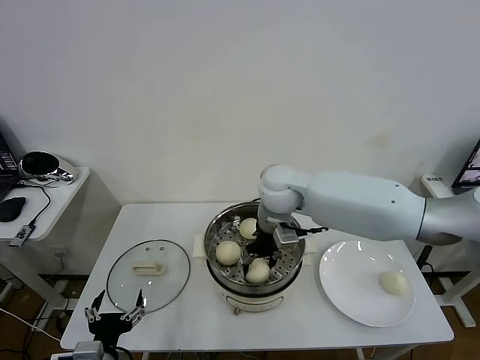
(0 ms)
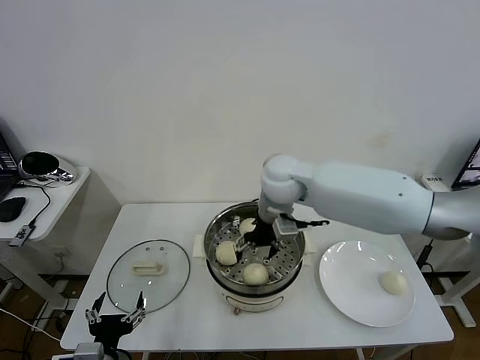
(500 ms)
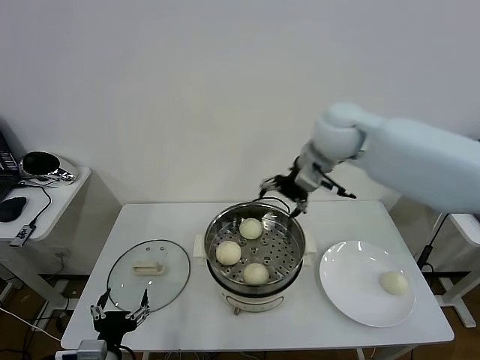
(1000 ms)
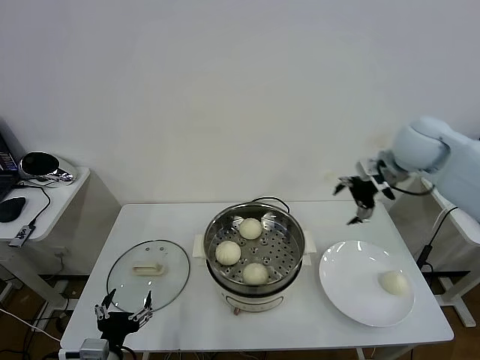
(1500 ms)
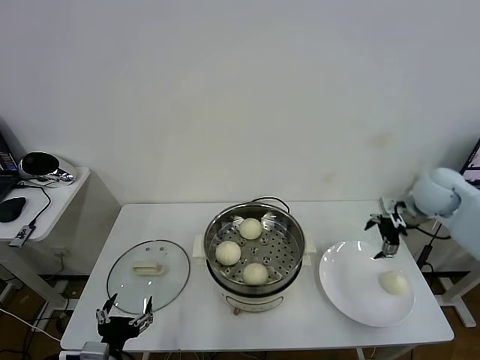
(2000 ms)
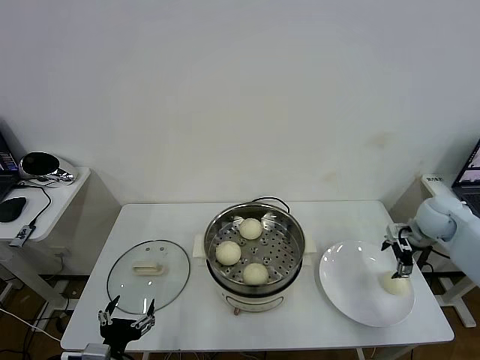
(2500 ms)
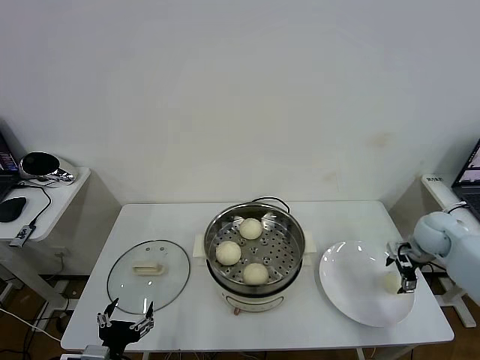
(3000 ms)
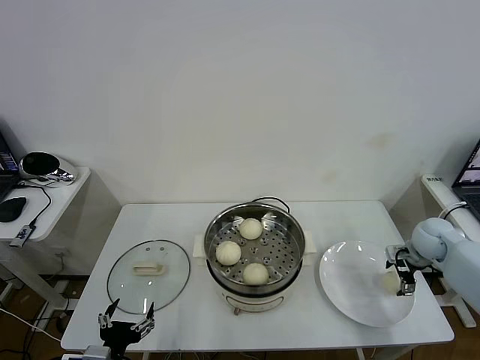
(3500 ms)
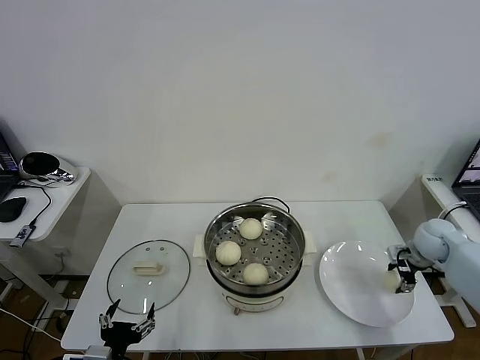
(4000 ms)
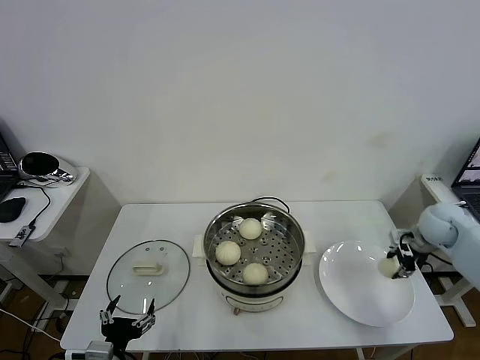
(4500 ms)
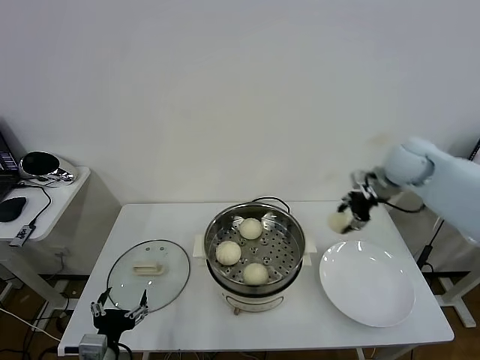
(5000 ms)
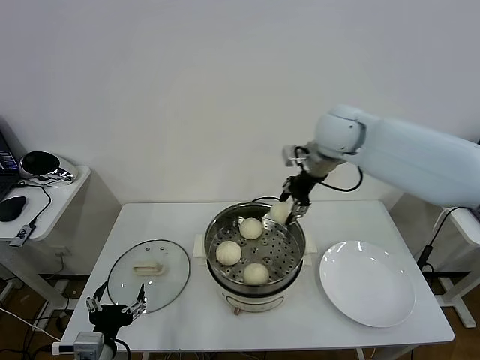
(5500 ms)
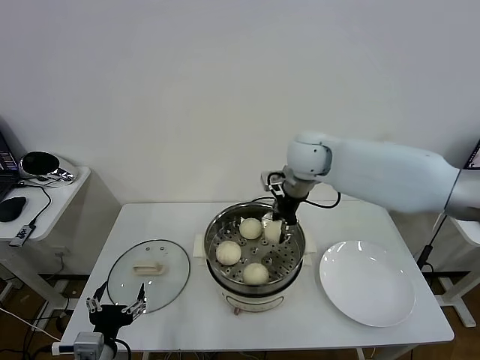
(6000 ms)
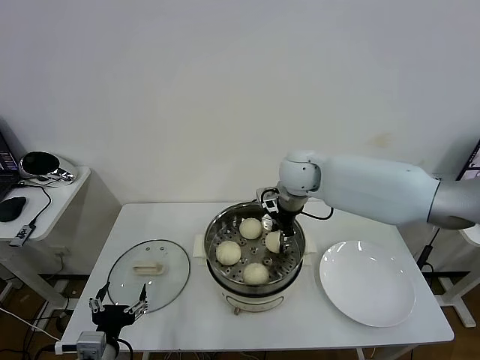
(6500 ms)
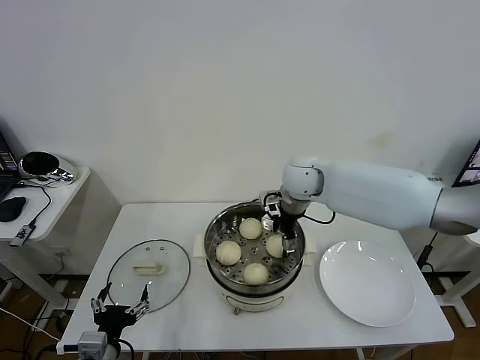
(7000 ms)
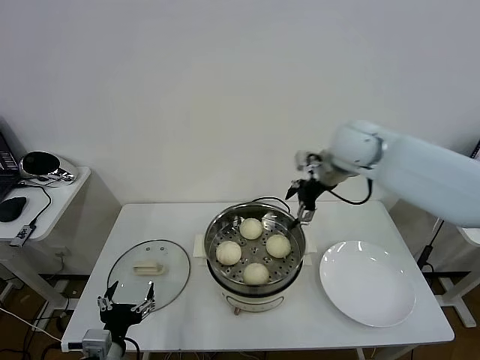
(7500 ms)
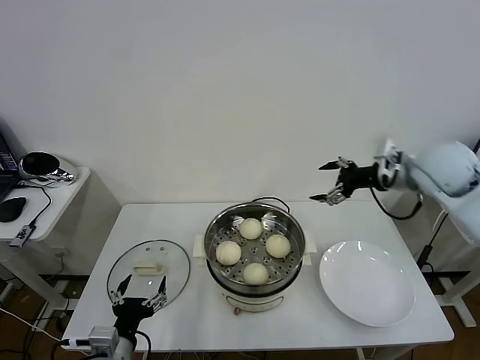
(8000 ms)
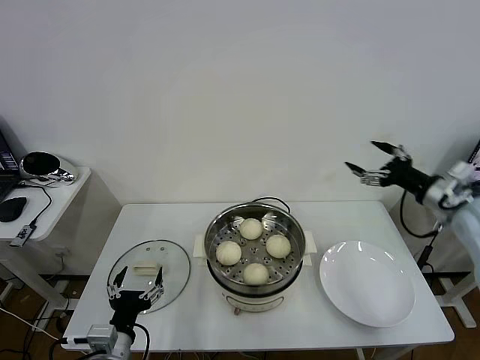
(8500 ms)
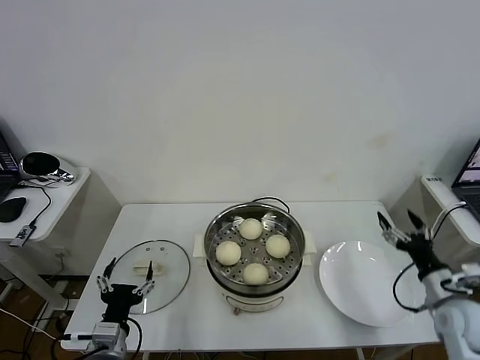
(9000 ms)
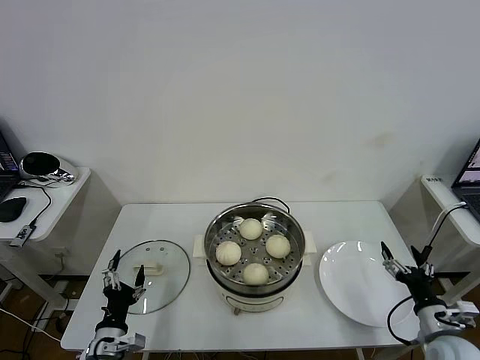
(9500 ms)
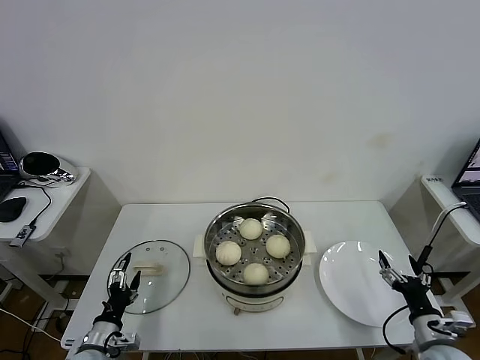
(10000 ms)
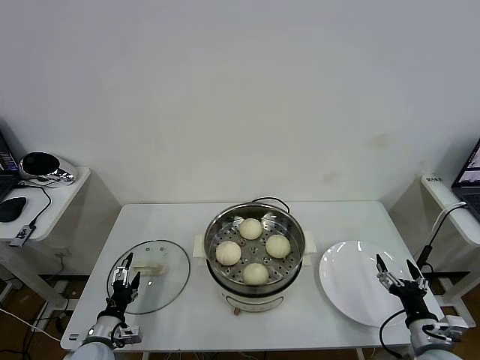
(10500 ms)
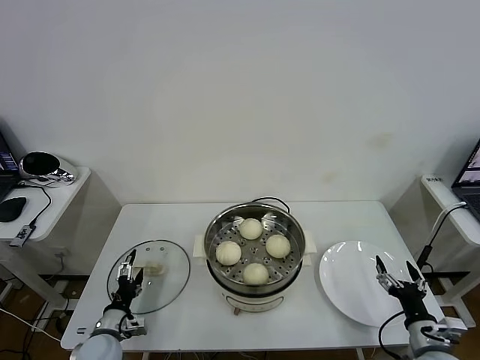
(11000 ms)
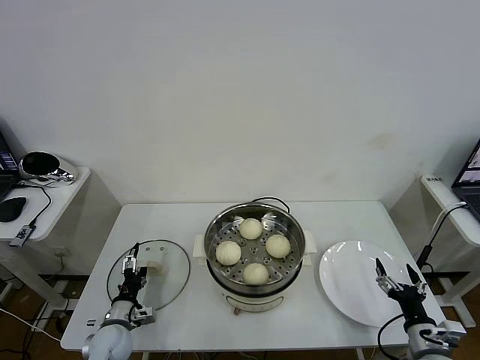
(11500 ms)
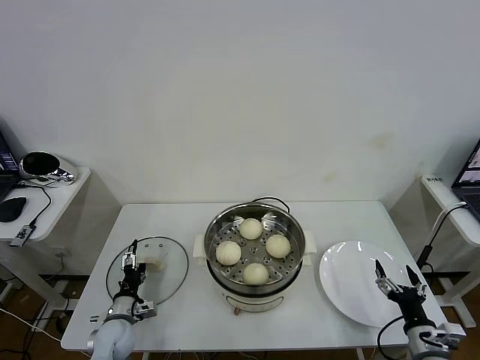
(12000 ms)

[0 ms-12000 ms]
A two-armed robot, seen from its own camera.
Task of the whole recording: take steamed baozi put them in steamer then cover it.
Step, 1000 ms to 4000 ms: Grasp the baozi in the plate with right gripper.
Step, 4500 ms to 7000 ms: Place the baozi on the steamer with right gripper.
0 ms to 2000 ms: The right gripper heads to the right, covering approximately 35 cm, and opens its fingers.
2000 ms to 4000 ms: The right gripper travels downward by about 15 cm, and closes up.
4000 ms to 6000 ms: The right gripper shifts about 40 cm to the left and upward.
6000 ms to 8000 ms: The right gripper heads to the right, covering roughly 25 cm, and opens up.
8000 ms to 10000 ms: The left gripper heads downward, to the left and forward, covering approximately 15 cm; the right gripper is displaced downward and backward by approximately 40 cm.
10000 ms to 12000 ms: The left gripper is displaced forward by roughly 10 cm.

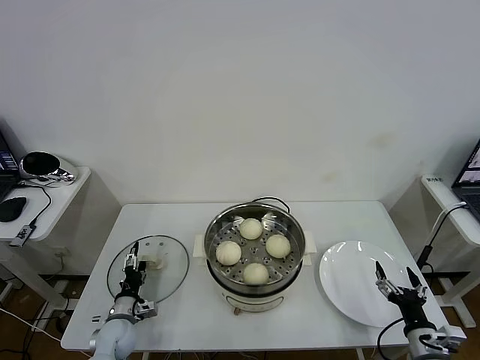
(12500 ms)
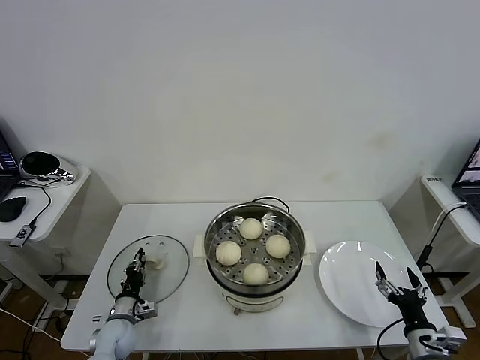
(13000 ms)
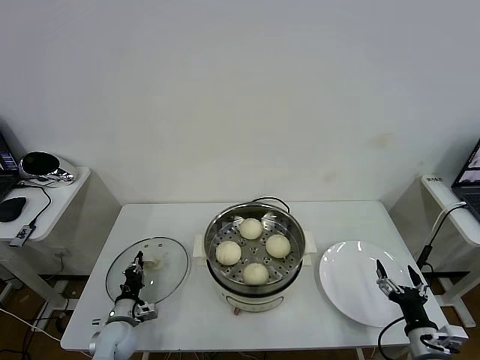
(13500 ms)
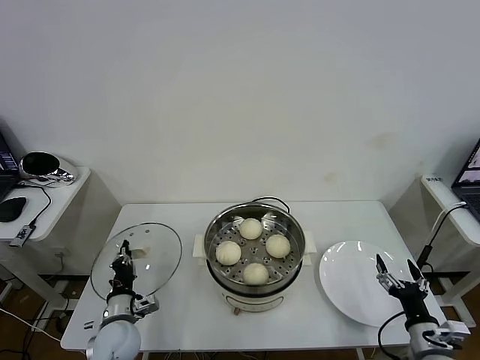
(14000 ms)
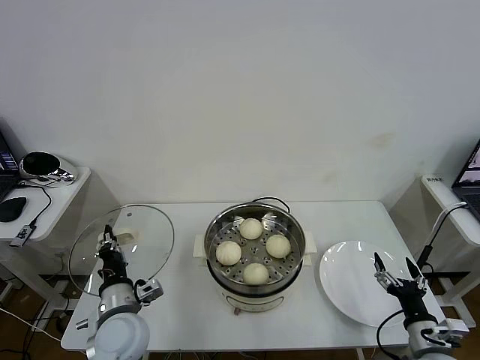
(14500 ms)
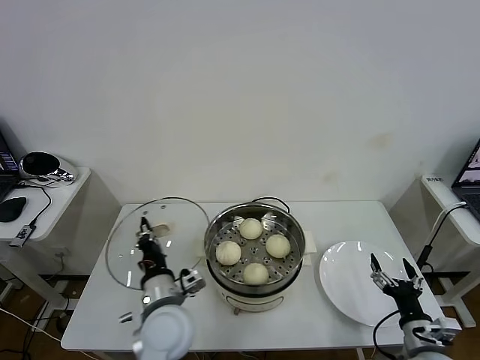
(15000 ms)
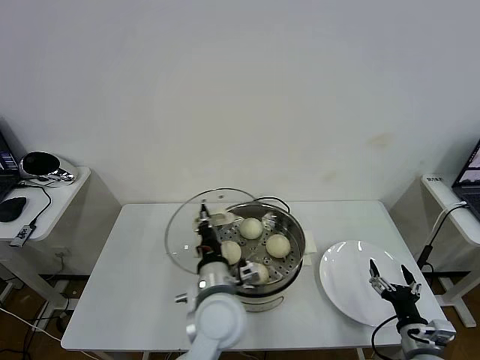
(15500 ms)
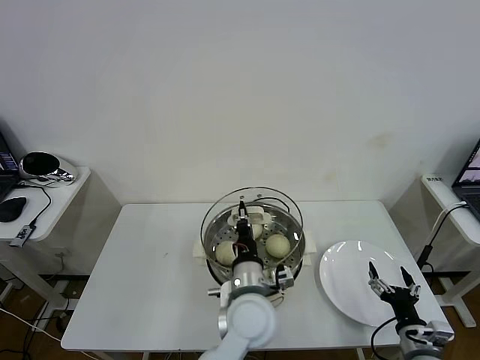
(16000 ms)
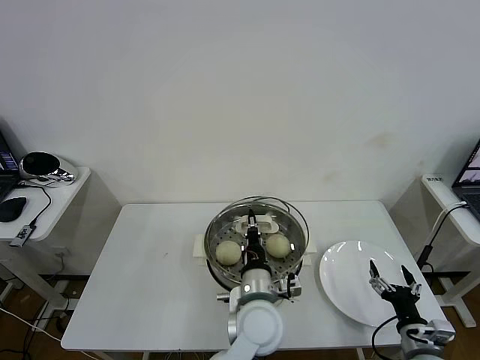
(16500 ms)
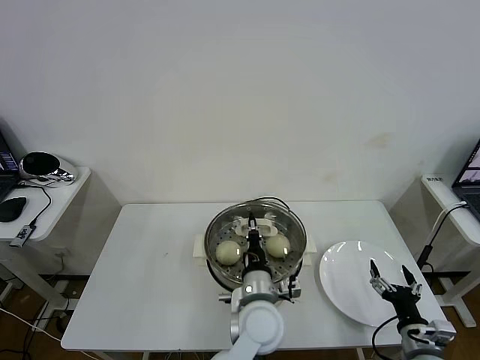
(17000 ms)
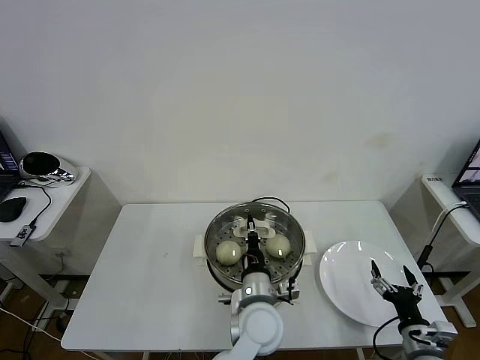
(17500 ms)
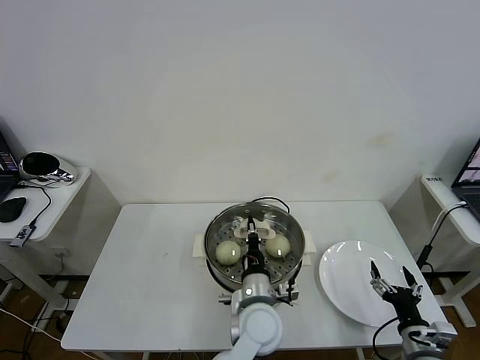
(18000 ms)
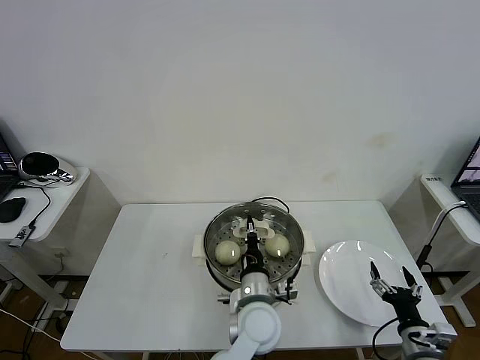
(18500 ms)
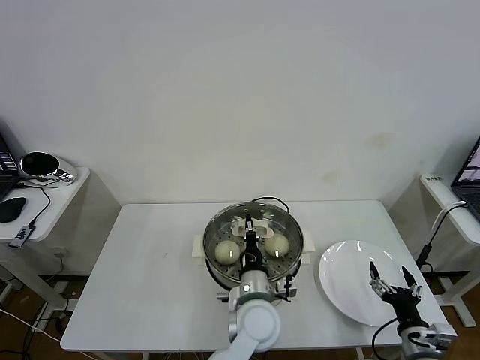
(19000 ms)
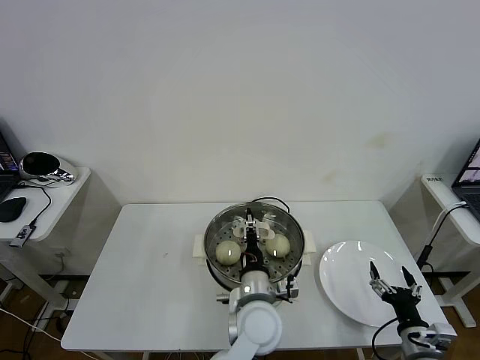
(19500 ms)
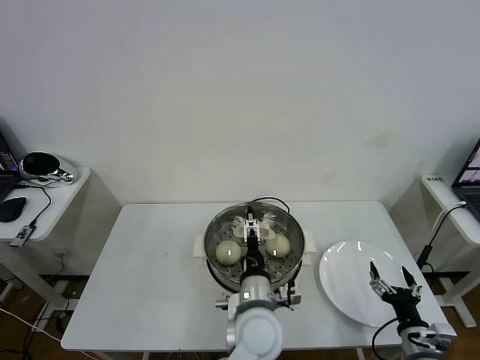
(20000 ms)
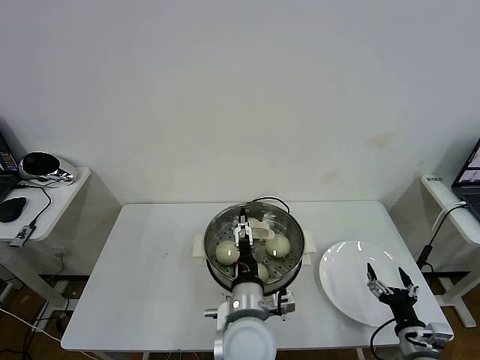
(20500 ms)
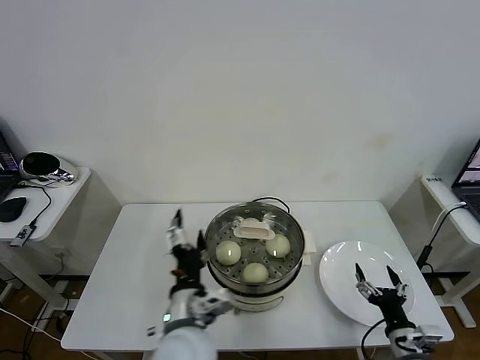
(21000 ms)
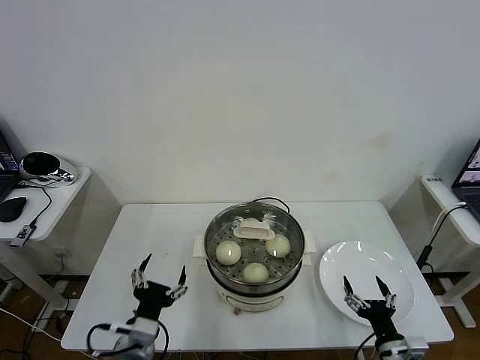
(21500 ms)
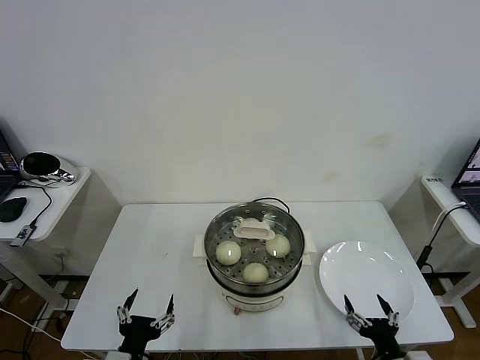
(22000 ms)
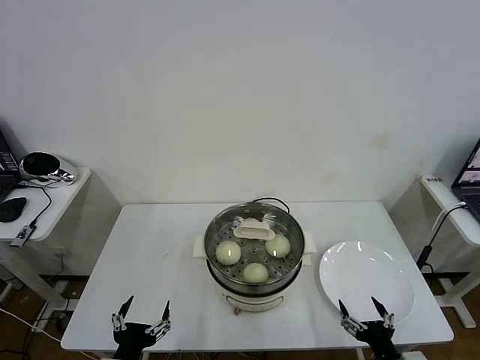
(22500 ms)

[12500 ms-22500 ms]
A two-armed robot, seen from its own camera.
Task of the whole recording: take steamed baozi put them in steamer then cover it.
Step, 13500 ms to 19500 ms: Place the pot lid on the steamer with left gripper.
12500 ms to 14500 ms: The left gripper shifts approximately 20 cm upward and to the right, and closes its fingers.
14500 ms to 16500 ms: The left gripper moves to the right, some 25 cm.
16500 ms to 18500 ms: There are only small adjustments of the grippers.
18500 ms to 20500 ms: The left gripper shifts by about 5 cm, and opens.
20500 ms to 22500 ms: The right gripper moves backward and to the left, roughly 10 cm, while the left gripper is displaced to the left and backward by roughly 30 cm.

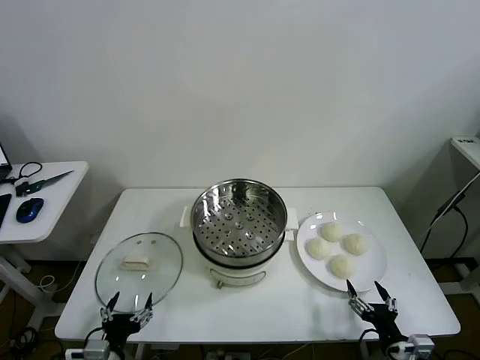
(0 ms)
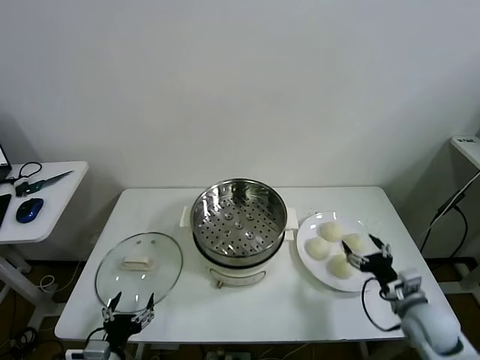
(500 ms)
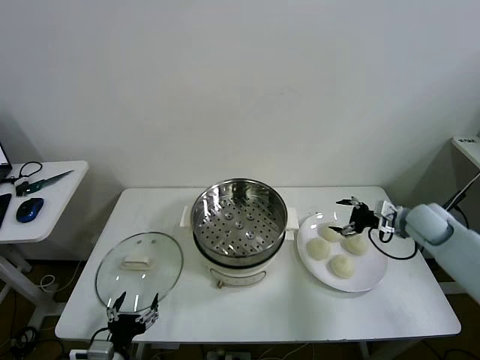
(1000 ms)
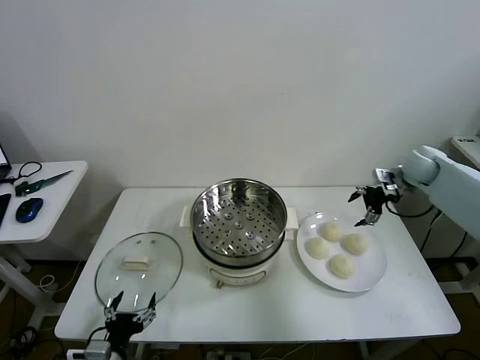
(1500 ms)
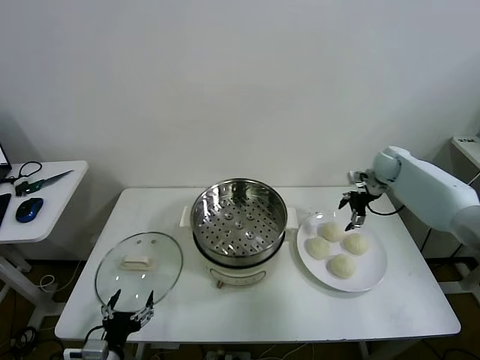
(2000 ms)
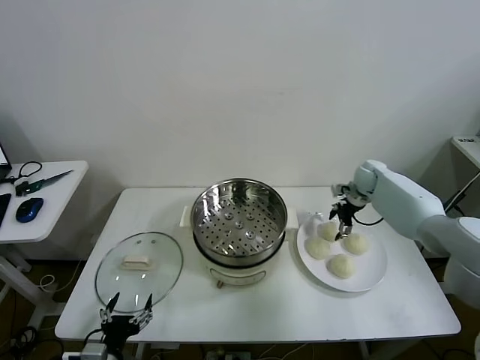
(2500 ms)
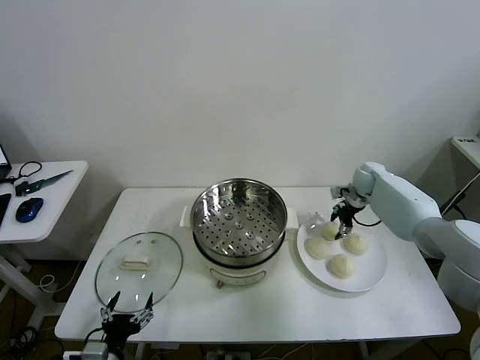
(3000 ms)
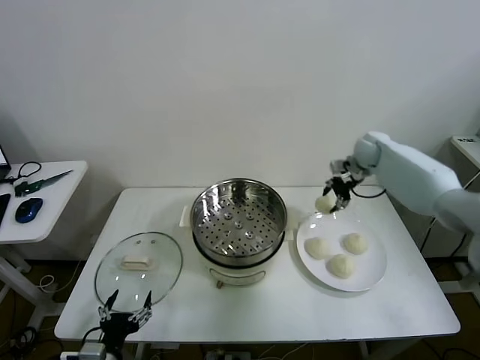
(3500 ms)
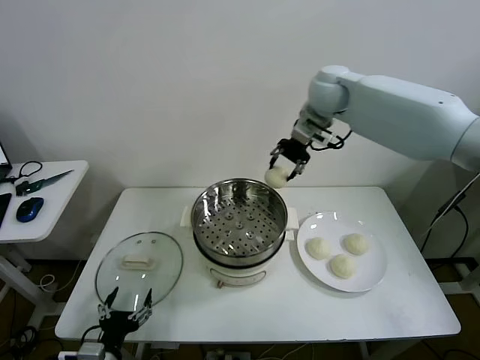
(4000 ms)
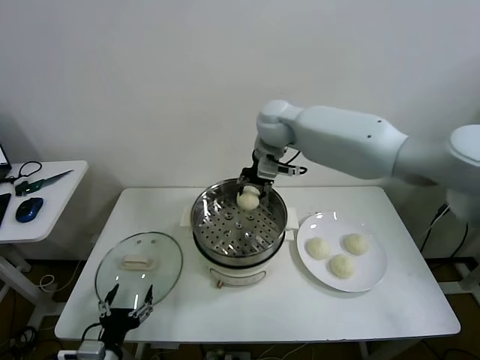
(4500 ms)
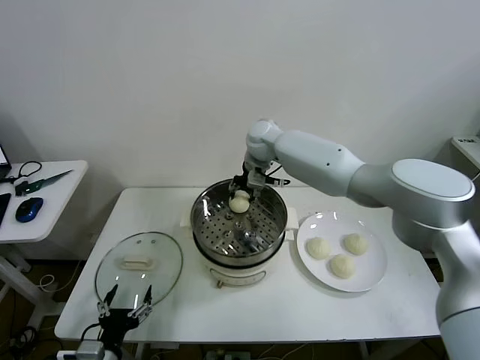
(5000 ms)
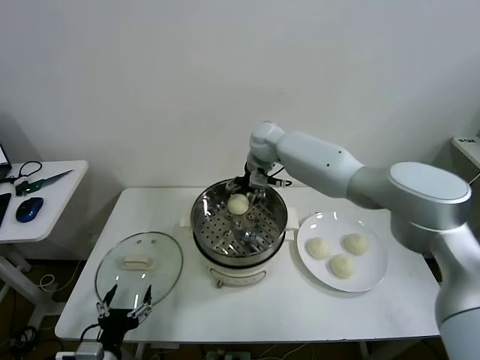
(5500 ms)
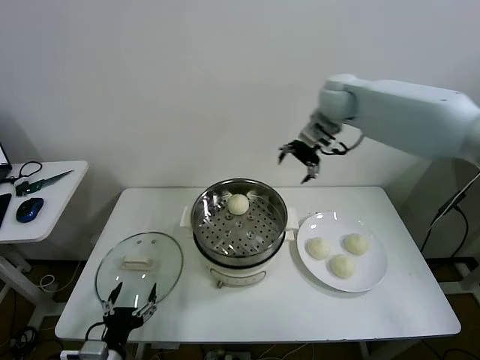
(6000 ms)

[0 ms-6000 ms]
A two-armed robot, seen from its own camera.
Task of the whole recording: take steamed baozi put them in steamer then cover it.
Step, 0 ms to 2500 ms: Grasp the baozi in the plate with right gripper.
Step, 3000 ms to 5000 ms: Place the baozi on the steamer with right gripper.
2000 ms to 4000 ms: The right gripper shifts some 35 cm to the left and upward, and closes up.
4000 ms to 6000 ms: The right gripper shifts approximately 10 cm to the right, and opens.
